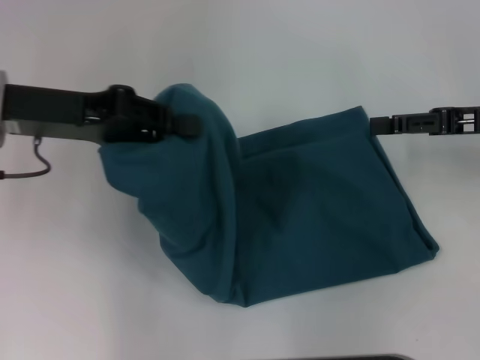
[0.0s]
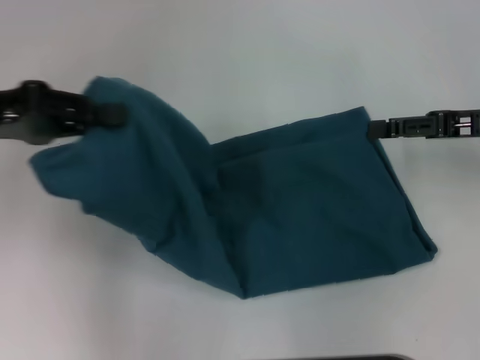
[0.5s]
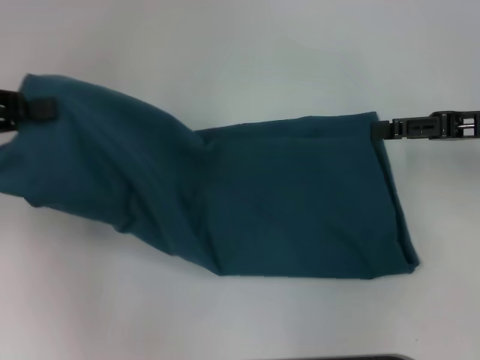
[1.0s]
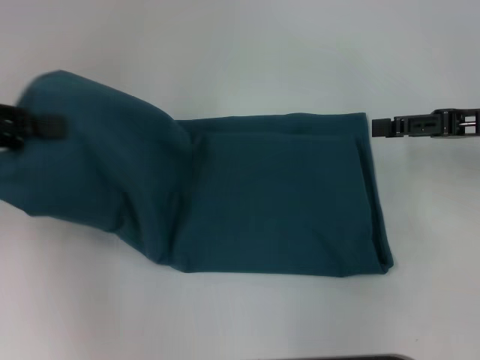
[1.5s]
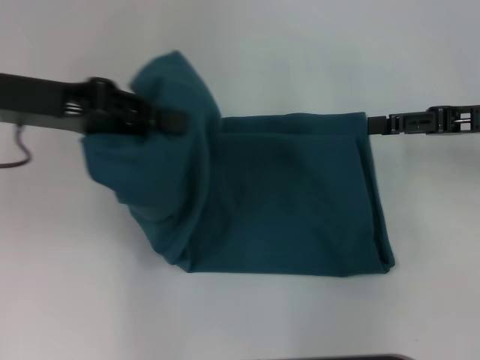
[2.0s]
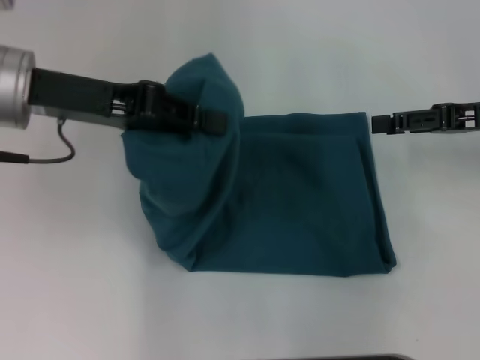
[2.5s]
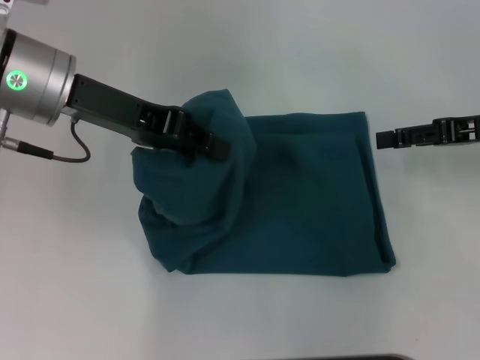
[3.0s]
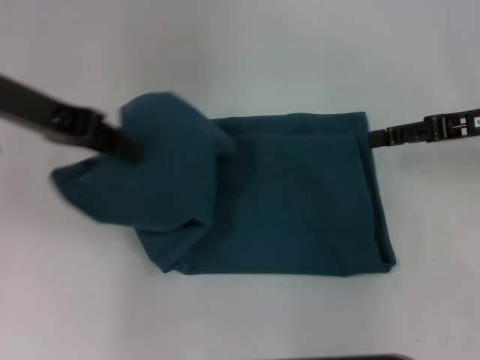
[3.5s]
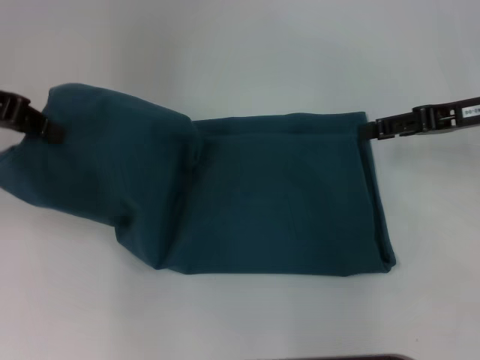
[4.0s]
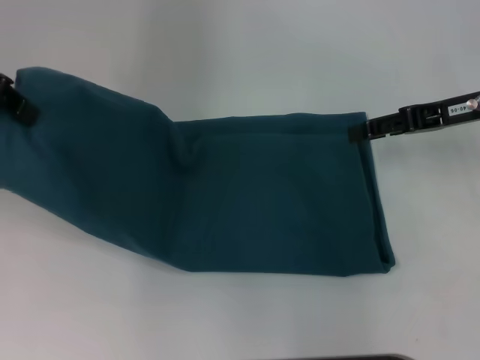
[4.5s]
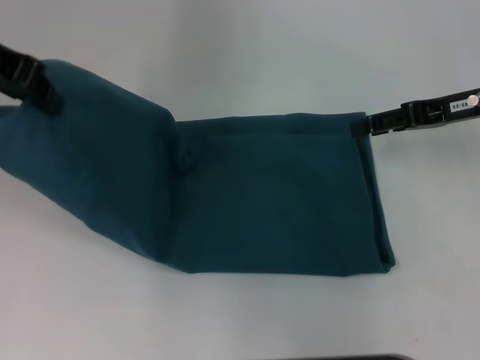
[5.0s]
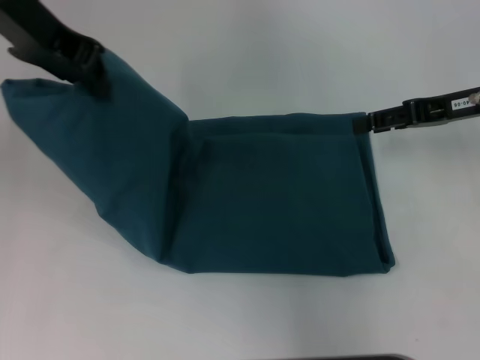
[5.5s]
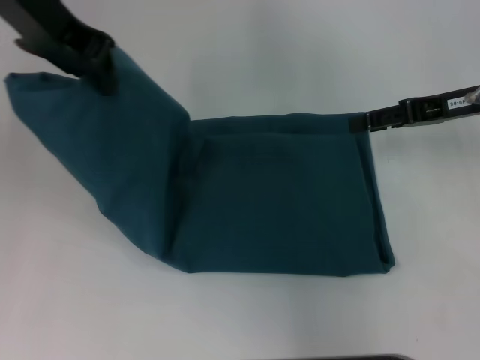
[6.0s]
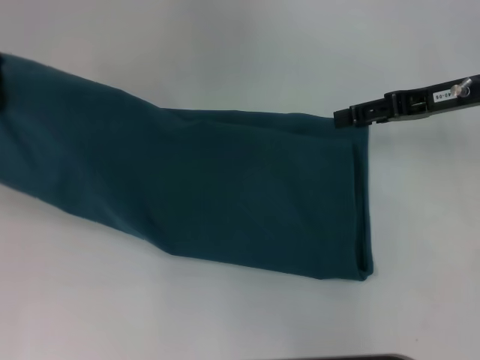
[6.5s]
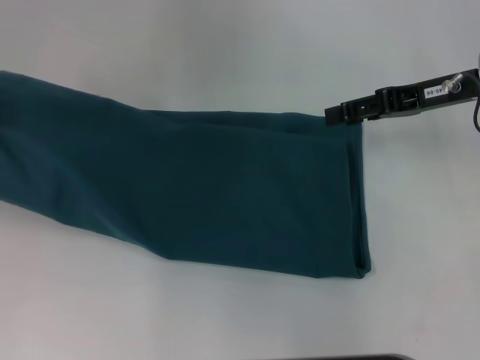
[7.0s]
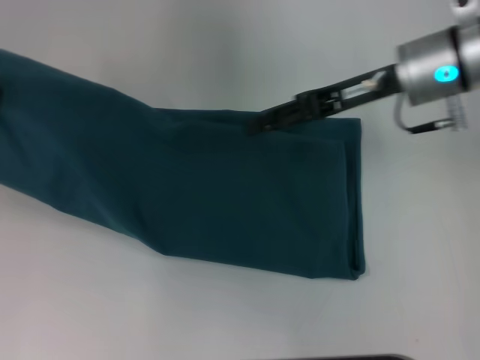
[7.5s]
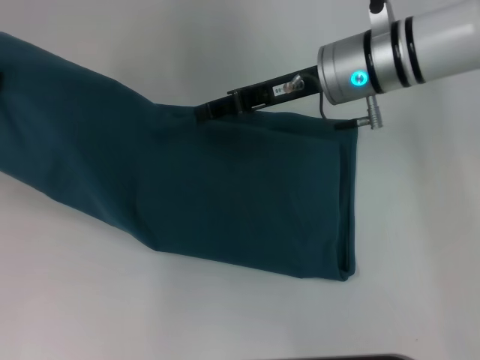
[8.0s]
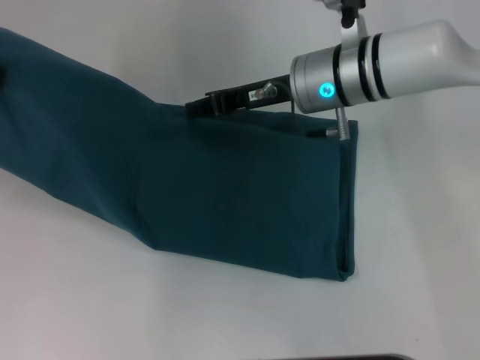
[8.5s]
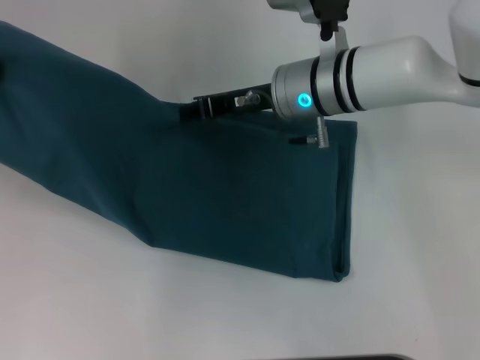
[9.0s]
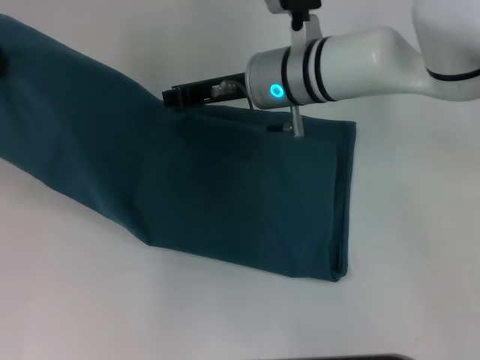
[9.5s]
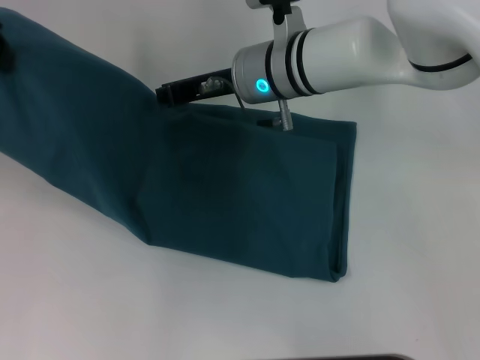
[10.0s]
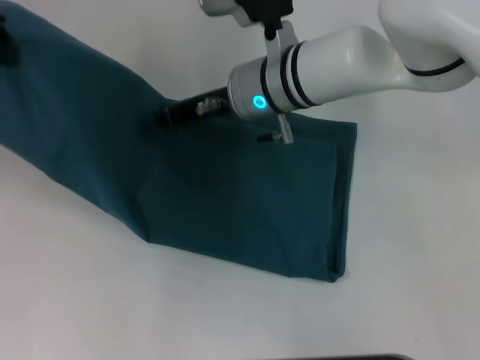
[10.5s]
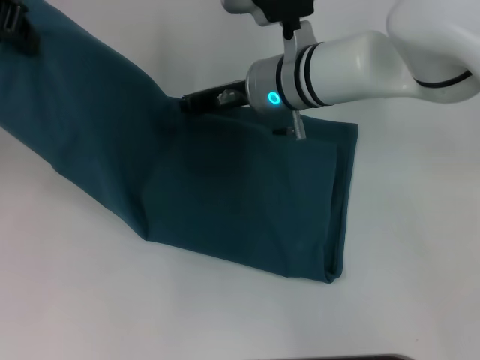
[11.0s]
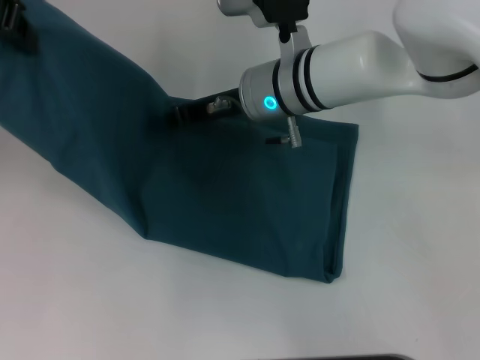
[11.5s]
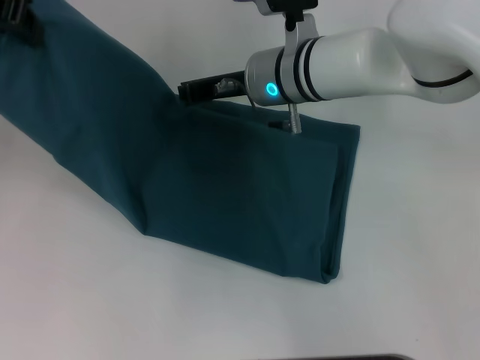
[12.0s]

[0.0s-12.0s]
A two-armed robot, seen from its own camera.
Step, 0.0s to 11.0s: Press the middle of the clothes with your right hand.
0.0s to 2.0s: The left gripper moves approximately 10 cm to the left and comes back.
2.0s to 4.0s: The left gripper moves to the left, about 5 cm.
4.0s to 6.0s: The left gripper shifts roughly 15 cm to the right and upward.
6.0s to 8.0s: The left gripper goes approximately 10 cm to the left, while the right gripper shifts roughly 15 cm to the left.
8.0s to 10.0s: The right gripper goes some 10 cm to the left, and closes its fingers.
10.0s to 12.0s: The grippers move only a little.

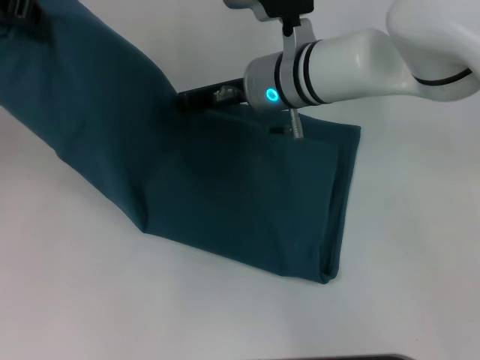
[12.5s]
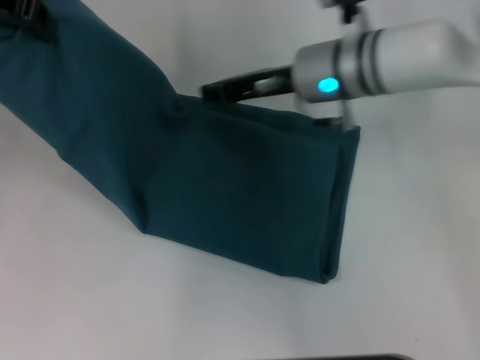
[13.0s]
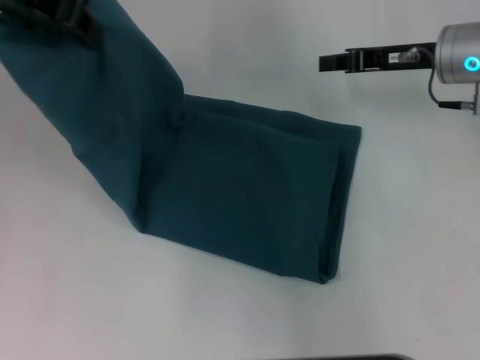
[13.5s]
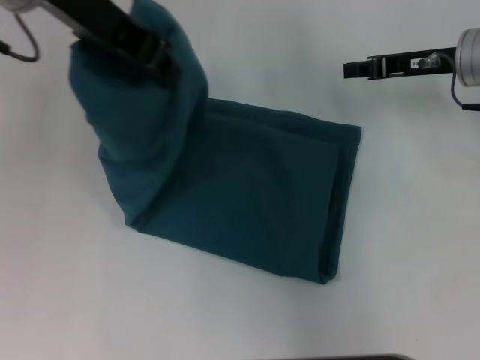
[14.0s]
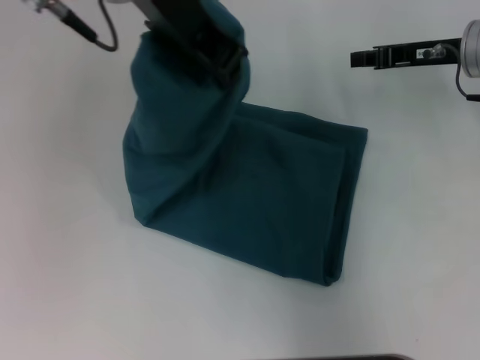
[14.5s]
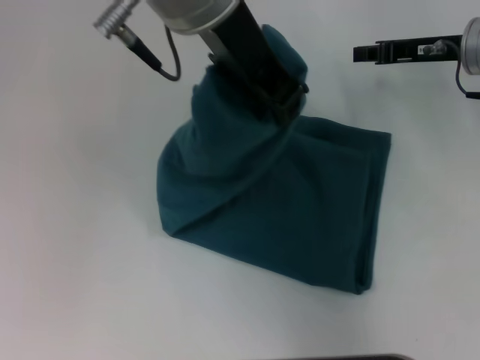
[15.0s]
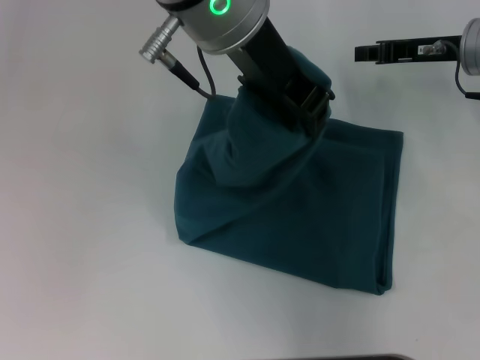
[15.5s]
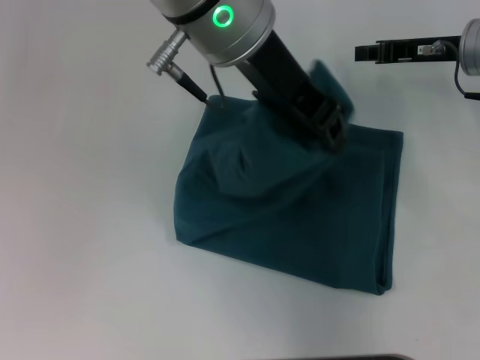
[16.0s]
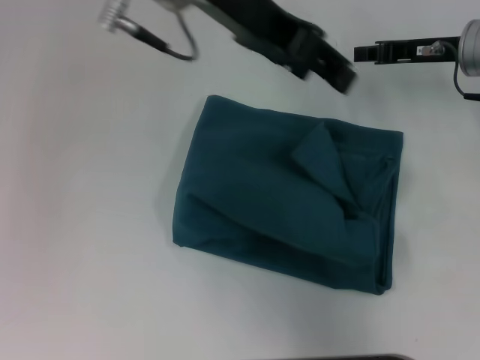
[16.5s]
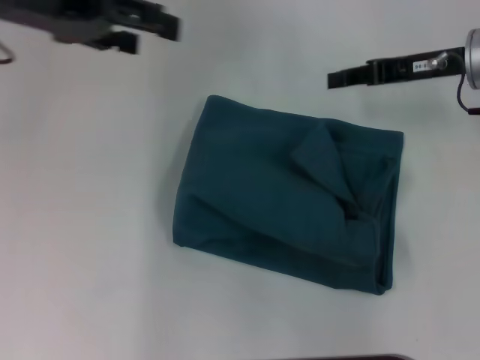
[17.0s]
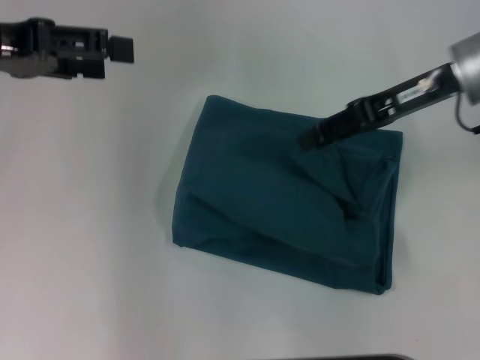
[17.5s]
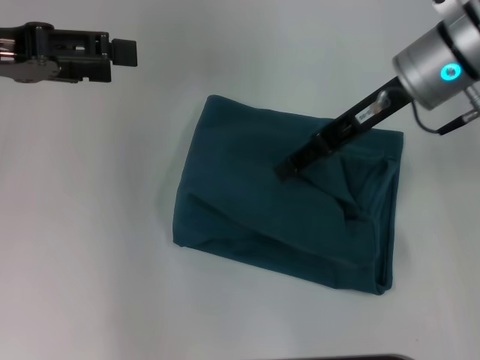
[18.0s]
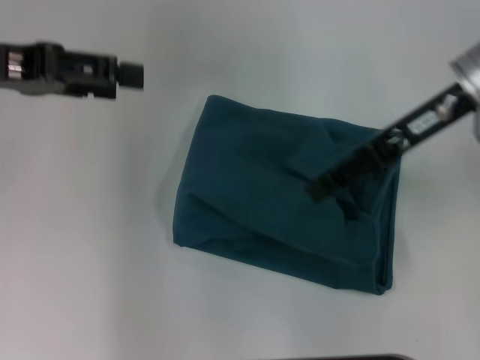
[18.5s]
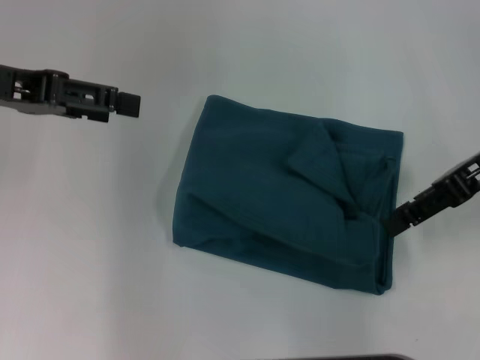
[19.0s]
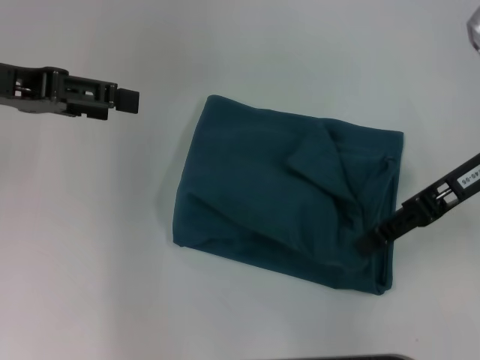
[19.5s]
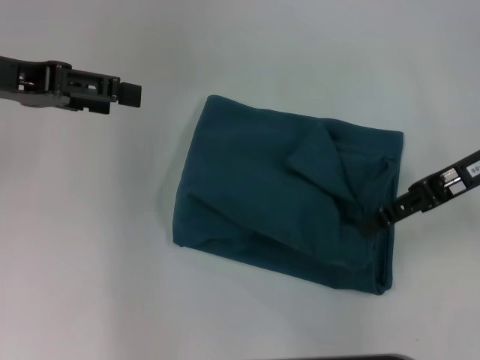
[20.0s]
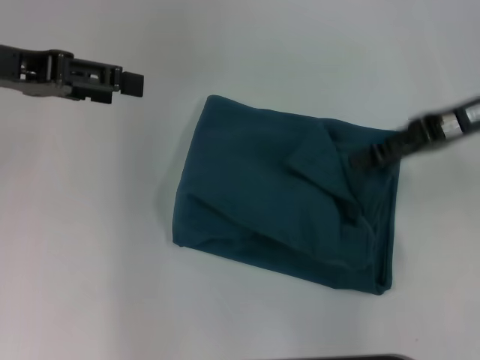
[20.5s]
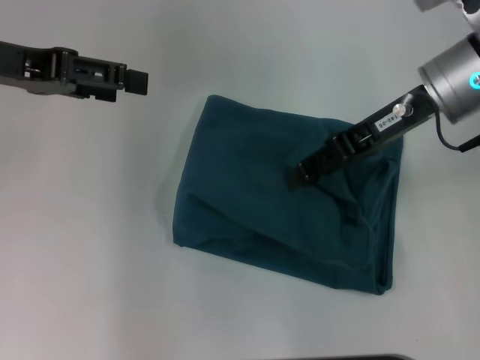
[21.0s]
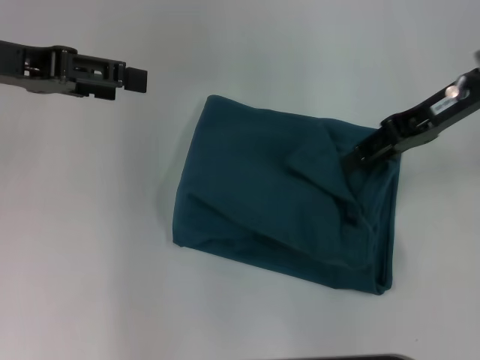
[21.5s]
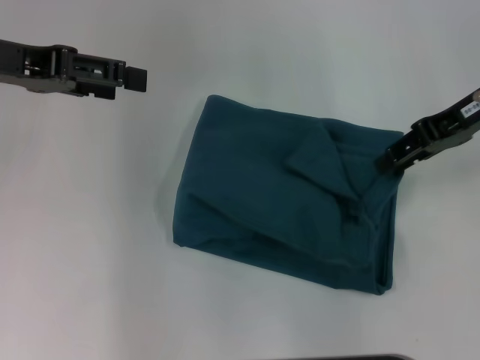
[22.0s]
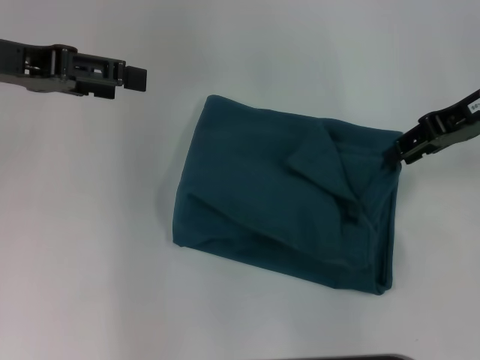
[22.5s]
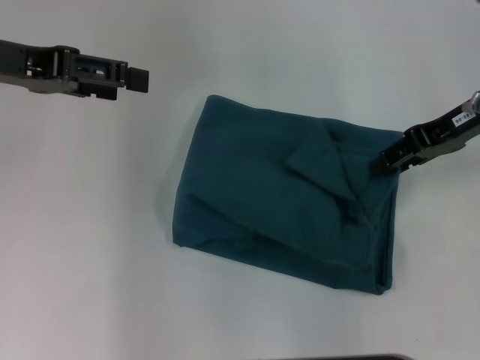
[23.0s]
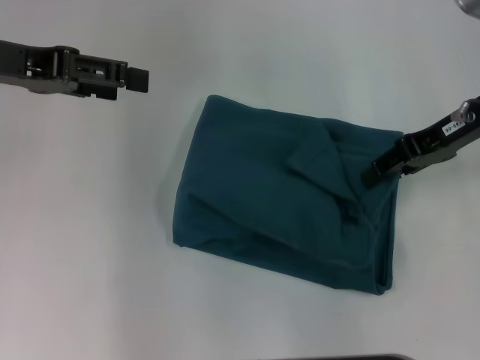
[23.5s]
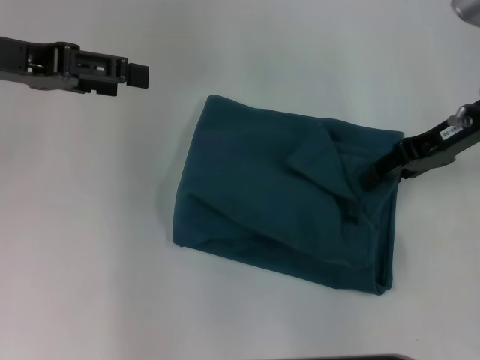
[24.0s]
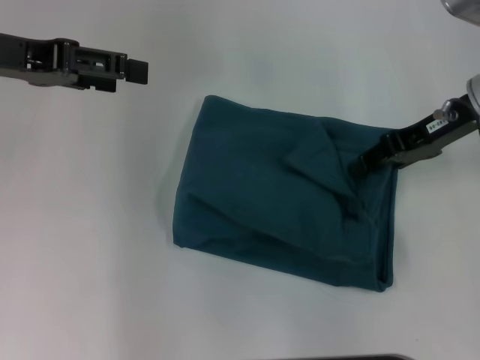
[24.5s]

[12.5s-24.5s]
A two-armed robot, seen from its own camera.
Step, 12.5s to 16.0s: Fold the clothes to the left.
12.5s to 14.5s: Both grippers move to the right, roughly 20 cm.
14.5s to 16.5s: The left gripper opens up.
16.5s to 18.5s: The left gripper moves to the left, some 20 cm, and opens its fingers, while the right gripper travels upward, backward and to the left by approximately 10 cm, and opens its fingers.
18.5s to 20.5s: The right gripper goes some 5 cm to the right.
20.5s to 22.5s: The right gripper reaches roughly 5 cm to the left, then returns.
22.5s to 24.5s: The grippers make only small movements.

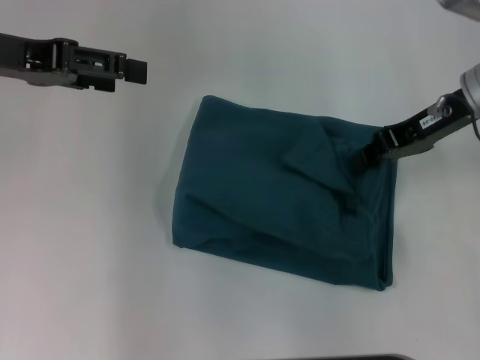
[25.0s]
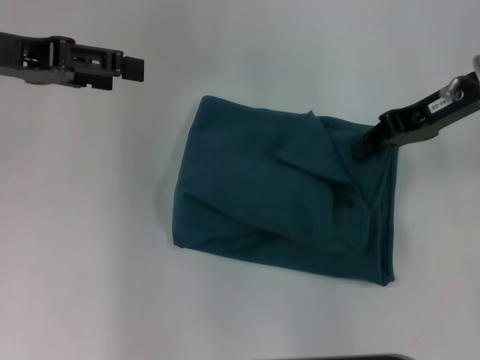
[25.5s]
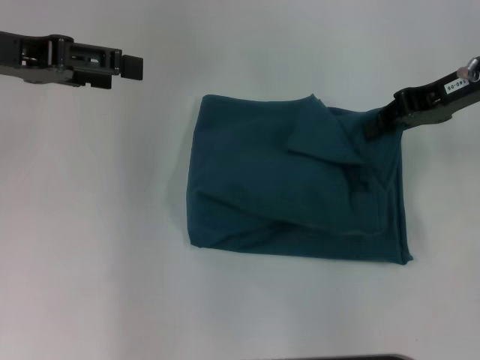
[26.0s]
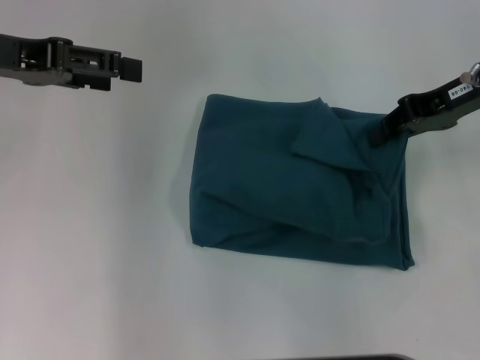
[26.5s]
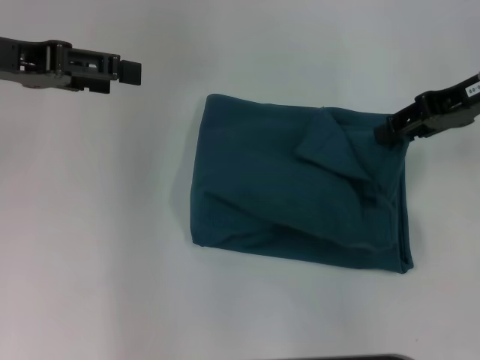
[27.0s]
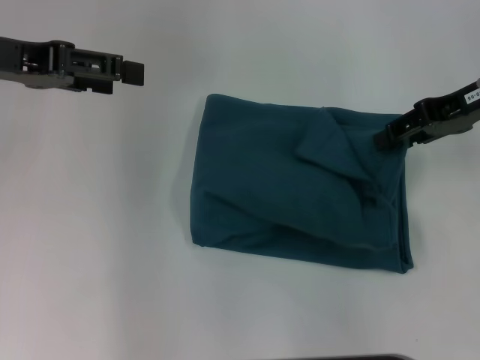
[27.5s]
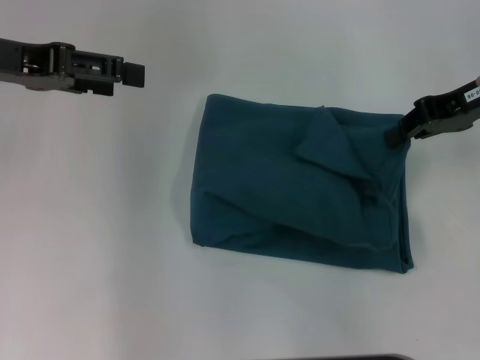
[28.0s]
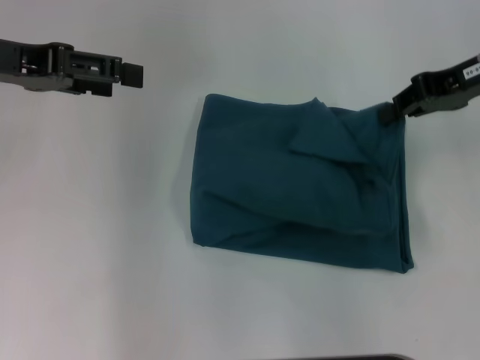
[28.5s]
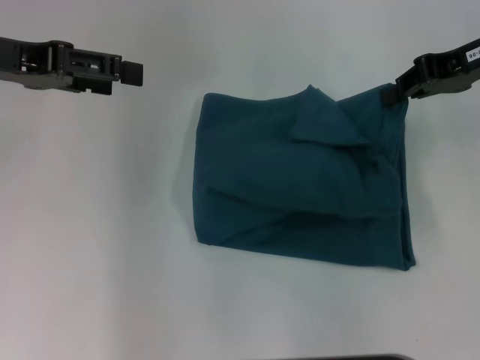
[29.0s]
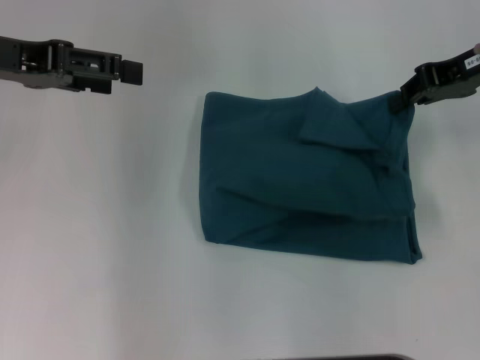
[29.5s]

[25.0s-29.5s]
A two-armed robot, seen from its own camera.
25.0s to 27.0s: There are only small adjustments of the grippers.
27.0s to 29.5s: The right gripper closes its fingers.
